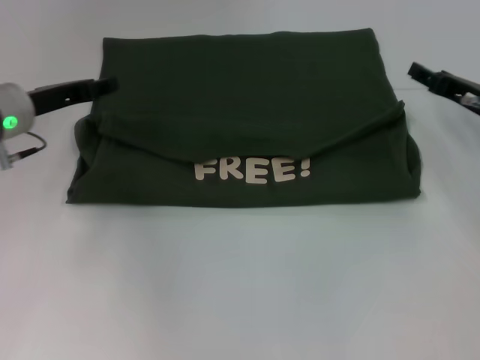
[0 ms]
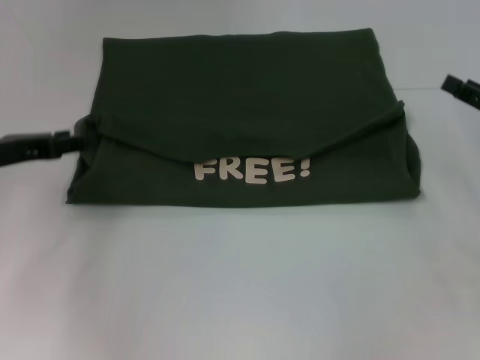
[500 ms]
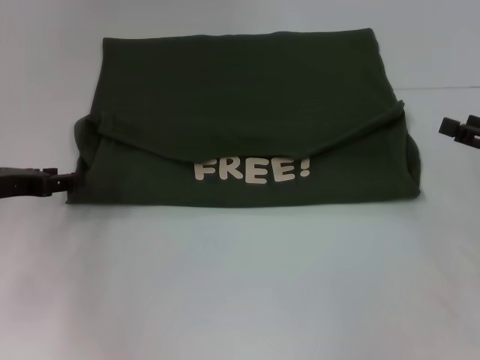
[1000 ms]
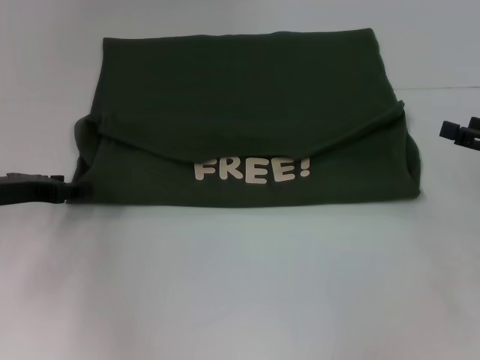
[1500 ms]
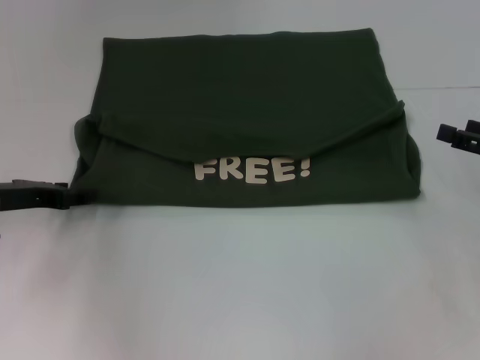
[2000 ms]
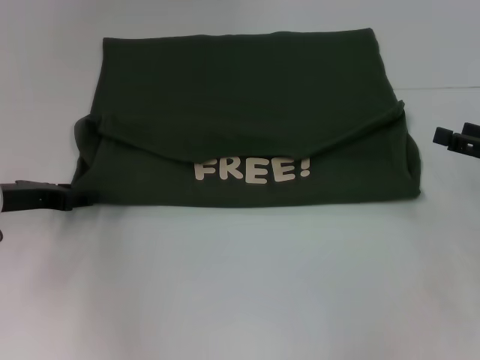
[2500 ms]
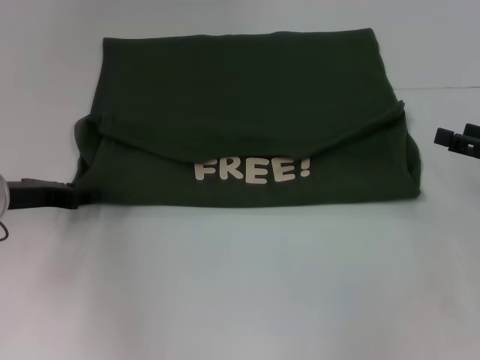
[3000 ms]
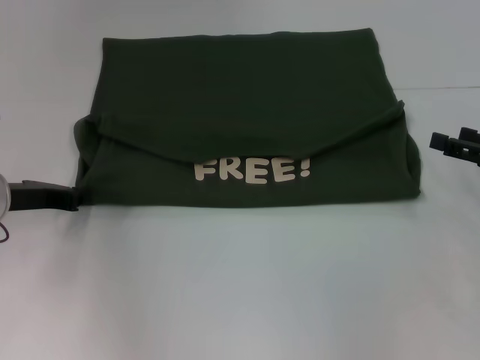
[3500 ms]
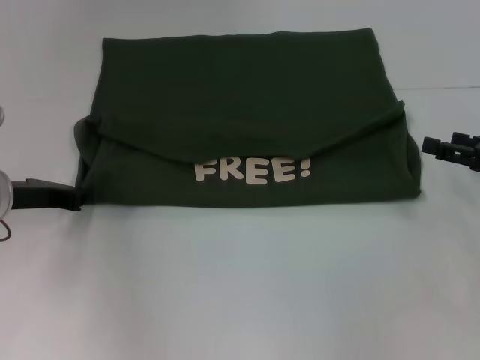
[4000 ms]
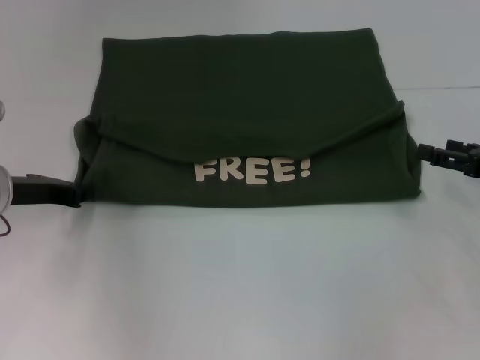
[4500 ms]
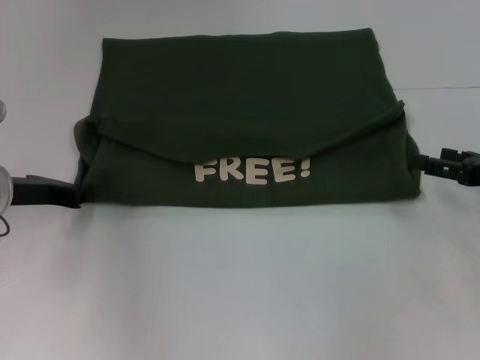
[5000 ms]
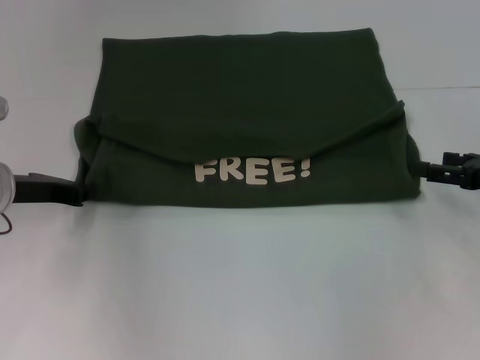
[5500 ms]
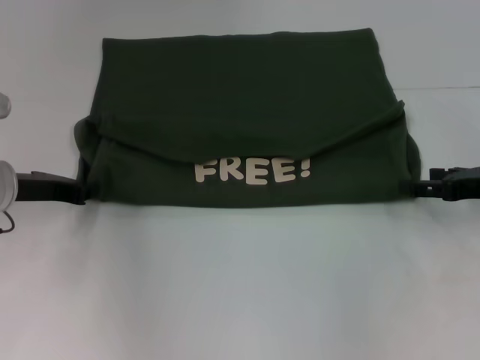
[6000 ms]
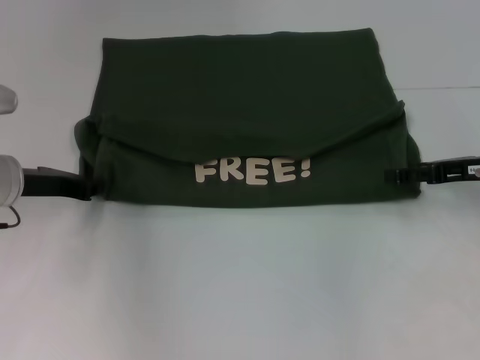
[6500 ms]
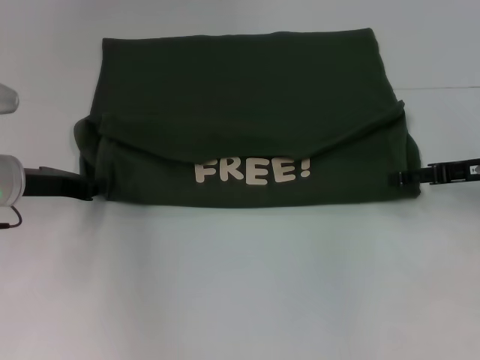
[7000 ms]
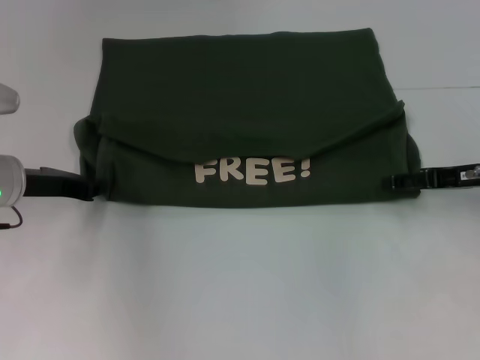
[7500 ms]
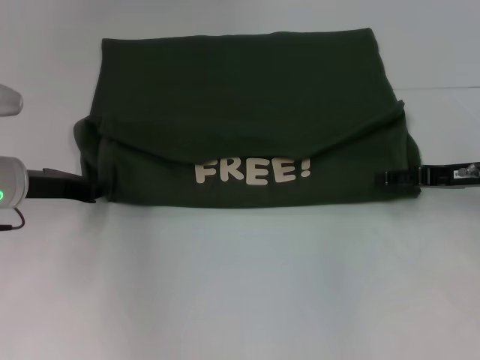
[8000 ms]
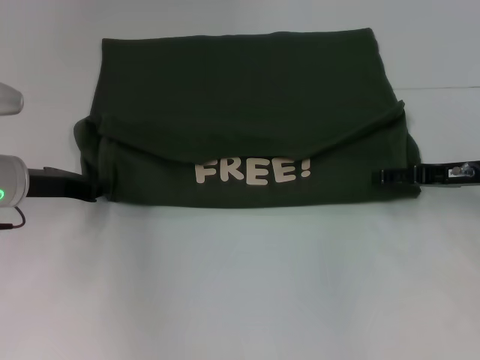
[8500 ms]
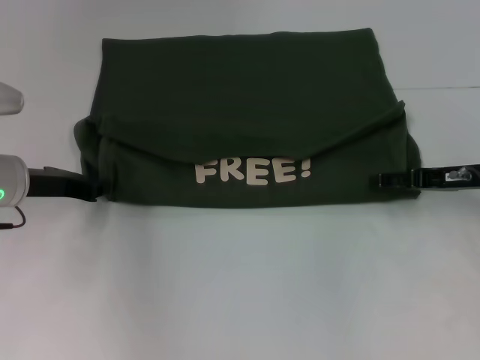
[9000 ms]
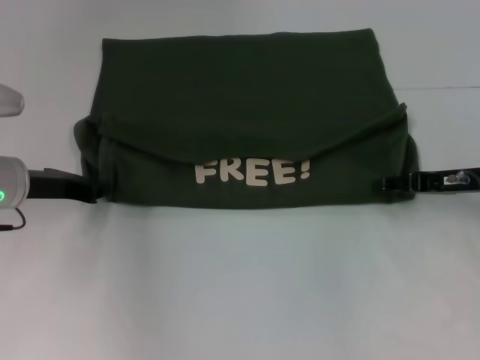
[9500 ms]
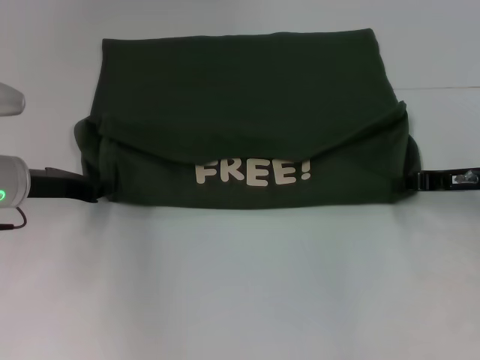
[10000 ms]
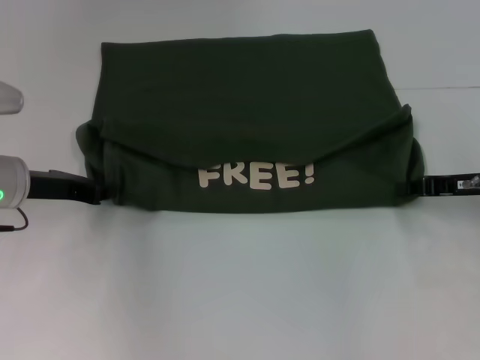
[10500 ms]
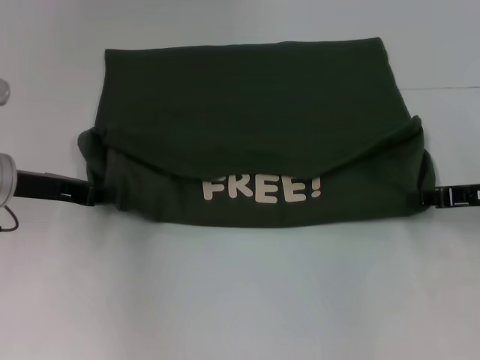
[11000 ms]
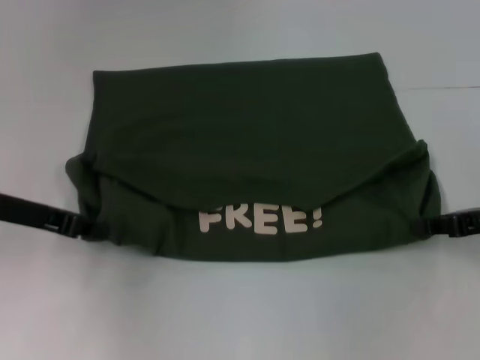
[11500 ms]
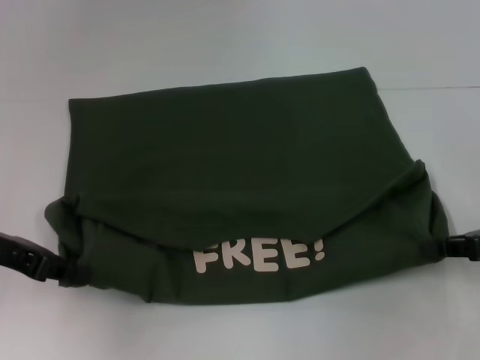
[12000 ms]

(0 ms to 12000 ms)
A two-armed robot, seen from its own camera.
0 ms - 2000 ms: The left gripper travels backward by some 5 cm; the right gripper goes about 10 cm backward and to the right.
2000 ms - 4000 ms: The left gripper closes.
4000 ms - 6000 ms: The grippers move only a little.
6000 ms - 8000 ms: The grippers move only a little.
8000 ms - 10000 ms: The right gripper closes up.
10000 ms - 12000 ms: Both grippers travel together backward, about 5 cm.

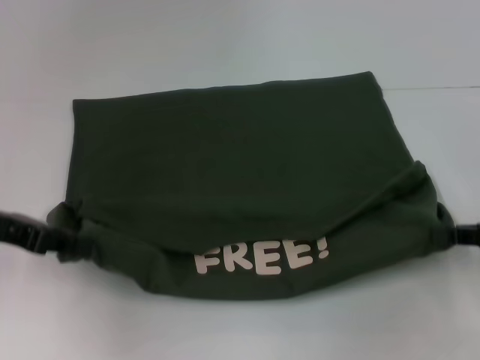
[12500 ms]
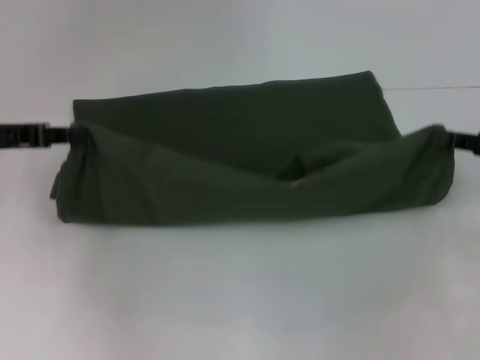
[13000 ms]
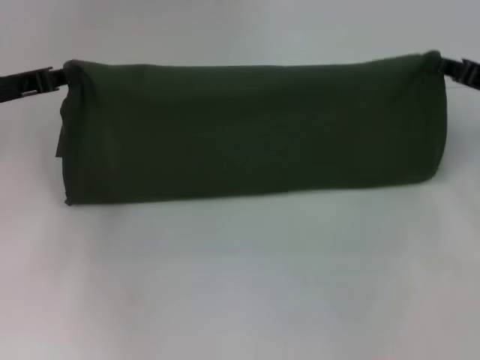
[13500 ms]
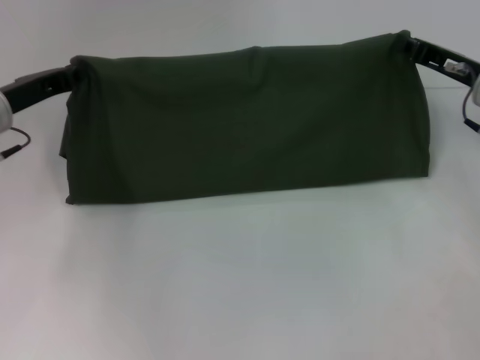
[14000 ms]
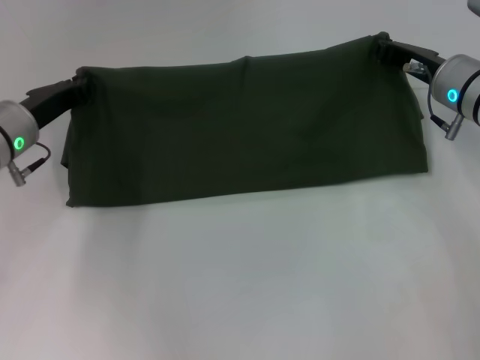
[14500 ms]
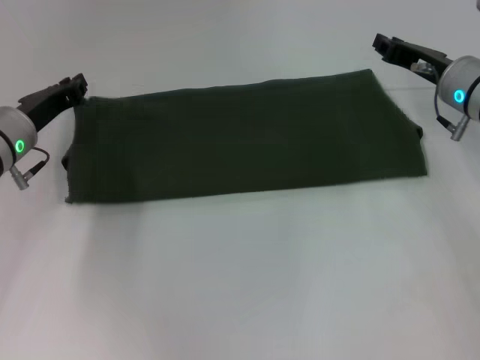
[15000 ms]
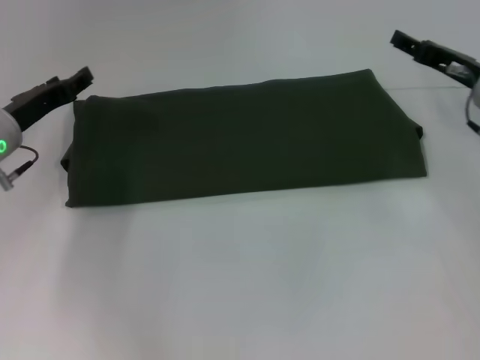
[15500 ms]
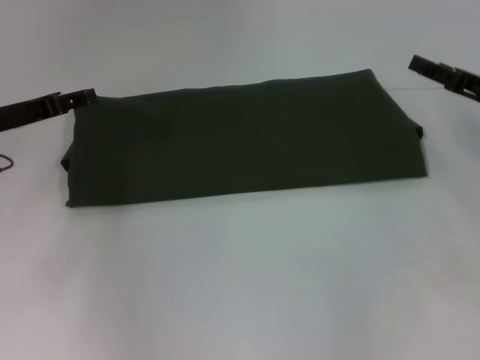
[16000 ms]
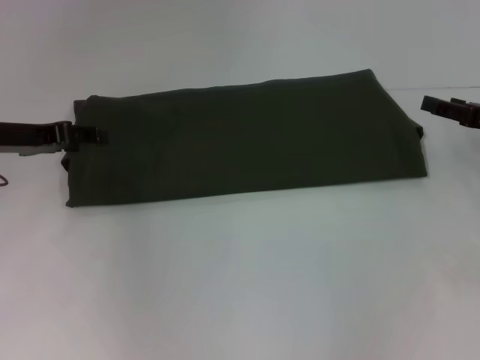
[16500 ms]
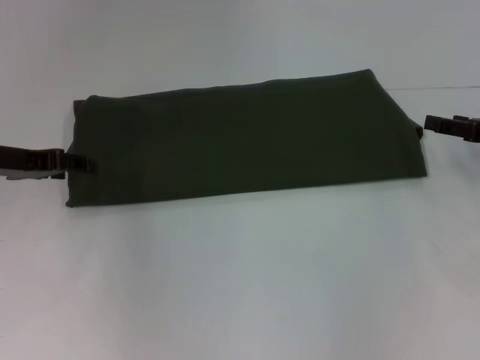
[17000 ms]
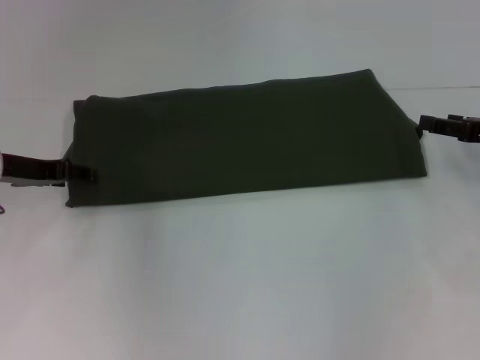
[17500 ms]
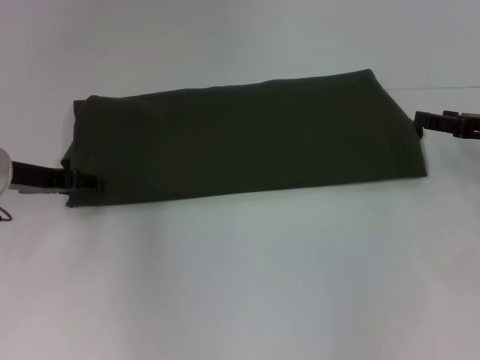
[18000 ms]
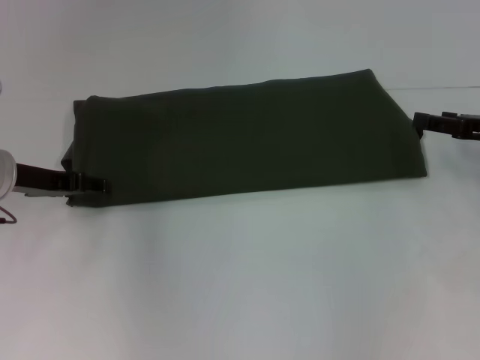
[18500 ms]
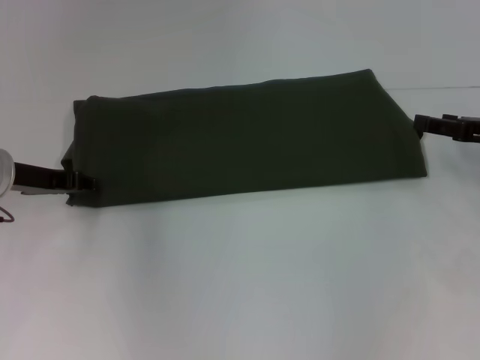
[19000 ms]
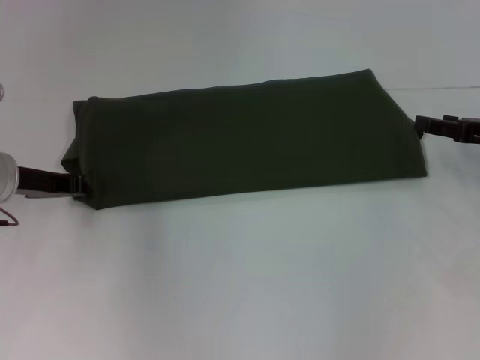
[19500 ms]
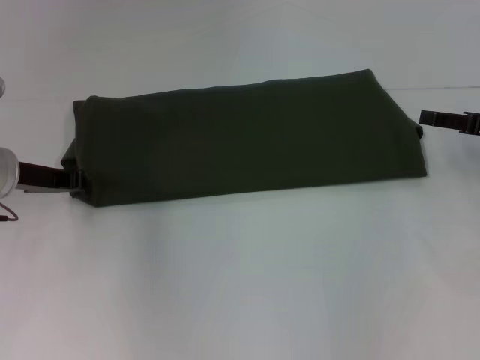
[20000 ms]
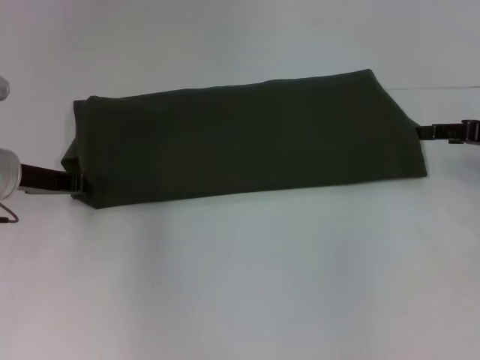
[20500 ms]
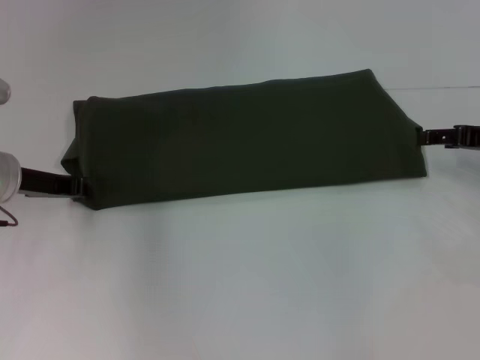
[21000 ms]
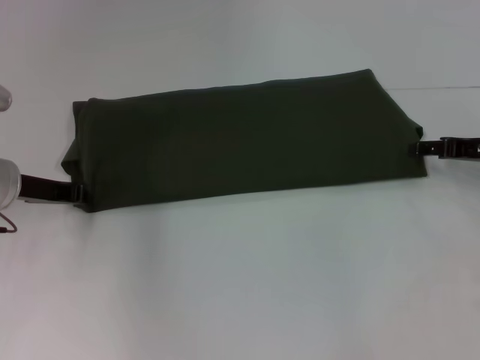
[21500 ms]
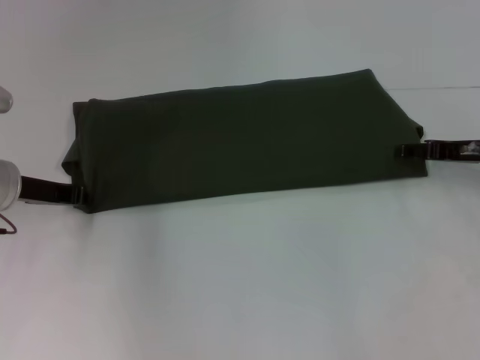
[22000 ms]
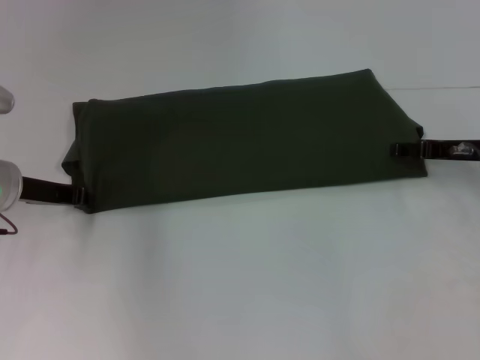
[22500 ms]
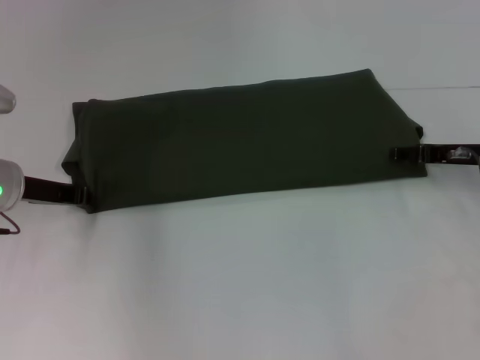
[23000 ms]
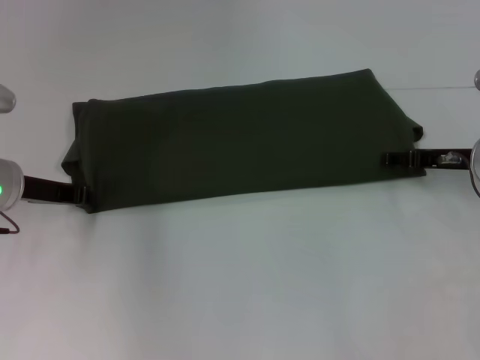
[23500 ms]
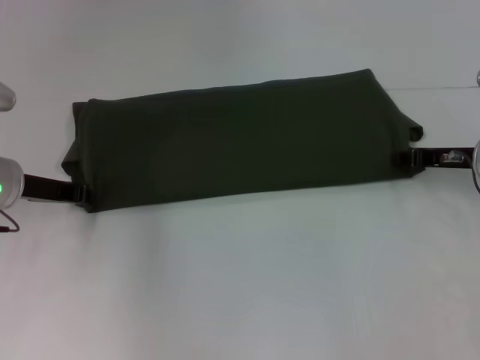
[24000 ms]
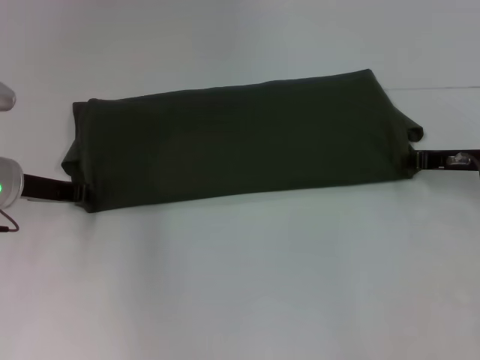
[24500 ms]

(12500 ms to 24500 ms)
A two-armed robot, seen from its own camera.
Step, 12500 ms - 15000 ms: Fold the clothes with your left hand.
Step, 12500 ms - 15000 ms: Fold the clothes with your right hand.
12500 ms - 14500 ms: The right gripper moves forward and to the left, about 20 cm. Meanwhile the left gripper moves forward, downward and to the right, some 10 cm.
14500 ms - 16500 ms: The right gripper shifts roughly 15 cm to the right and backward, and opens. The left gripper moves about 5 cm, and opens up.
16500 ms - 18500 ms: The grippers move only a little.
20500 ms - 22500 ms: The right gripper shifts by roughly 5 cm.
22500 ms - 24500 ms: The right gripper closes its fingers.

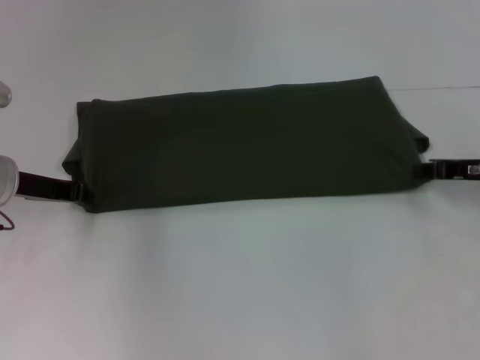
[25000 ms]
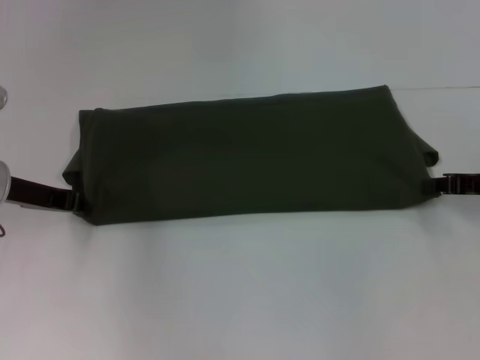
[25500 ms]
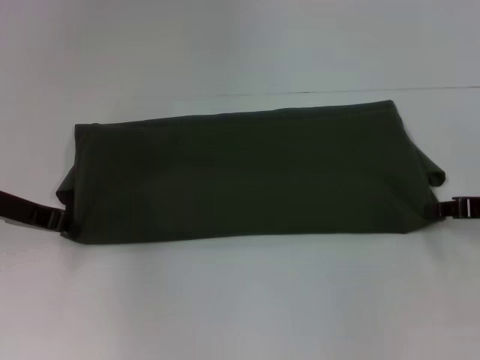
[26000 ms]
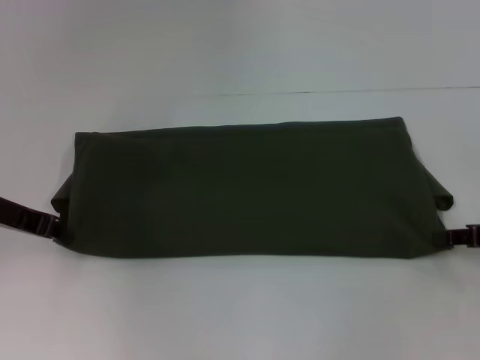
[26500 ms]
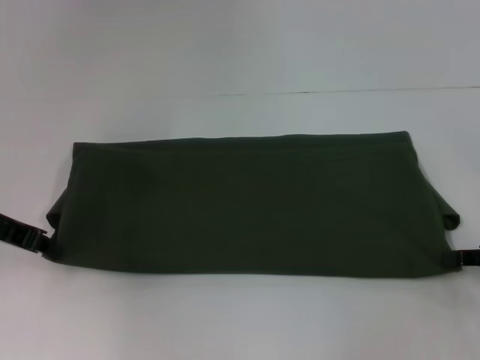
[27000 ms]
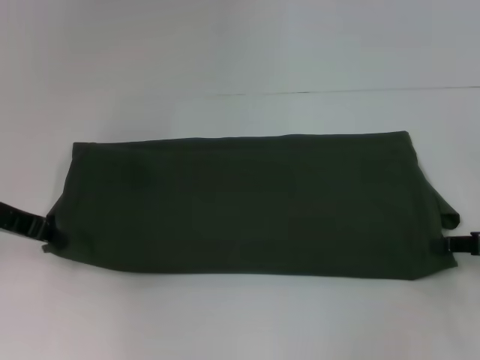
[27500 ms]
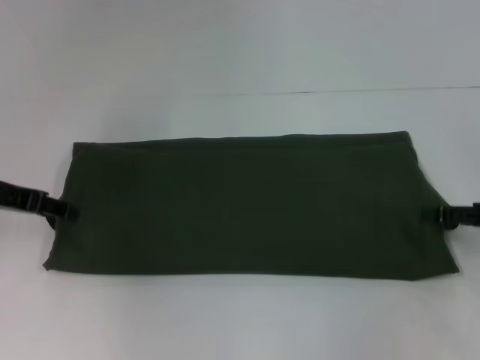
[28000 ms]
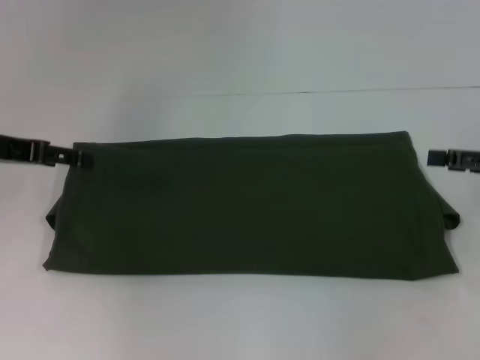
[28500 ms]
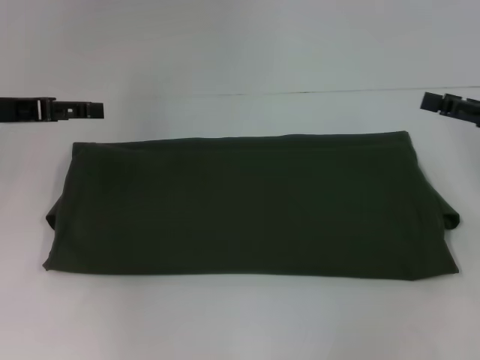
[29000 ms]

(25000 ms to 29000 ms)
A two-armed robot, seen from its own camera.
Step, 25000 ms - 27500 ms: Pull the clothes with your left hand.
Step, 25000 ms - 27500 ms: Pull the clothes with your right hand.
25000 ms - 27000 ms: The left gripper moves approximately 5 cm, while the right gripper travels backward by some 10 cm.
27000 ms - 29000 ms: The left gripper changes place by about 5 cm, and opens. The right gripper moves upward and forward, about 10 cm, and opens.
